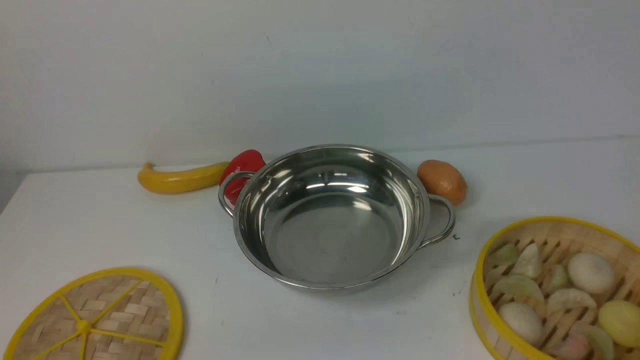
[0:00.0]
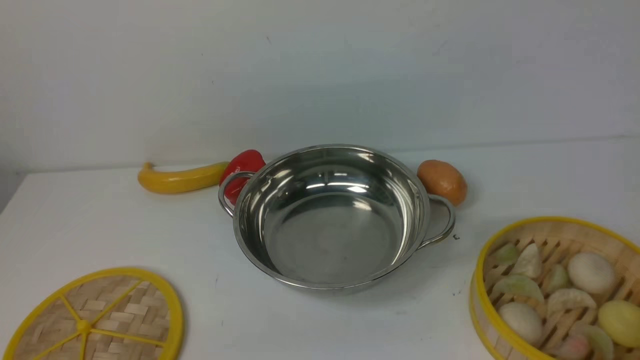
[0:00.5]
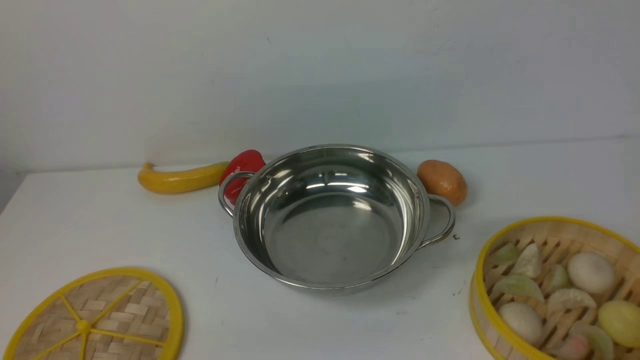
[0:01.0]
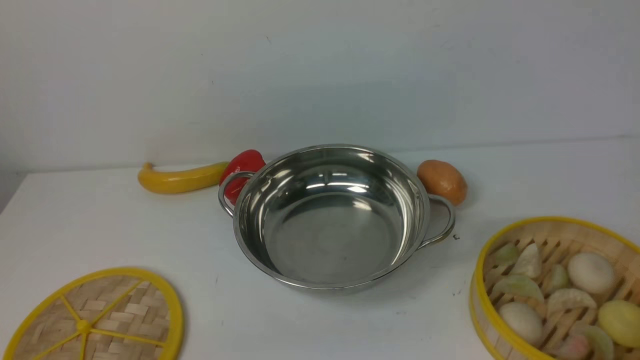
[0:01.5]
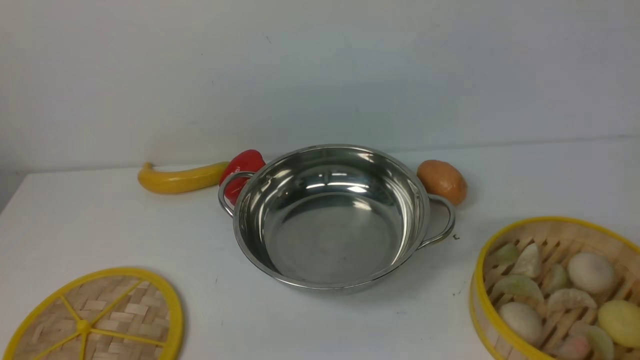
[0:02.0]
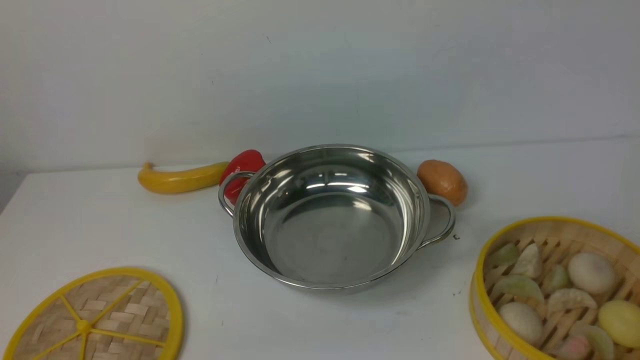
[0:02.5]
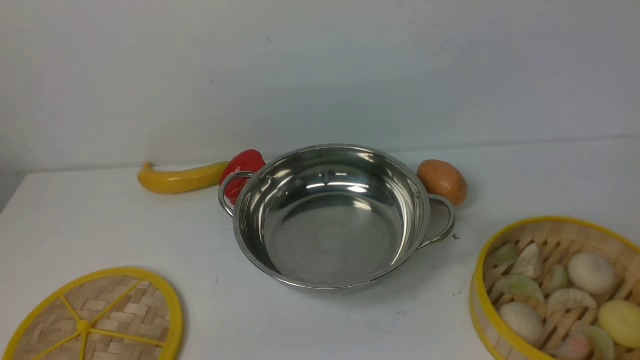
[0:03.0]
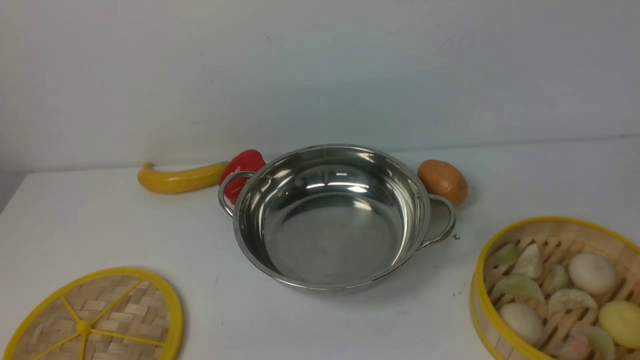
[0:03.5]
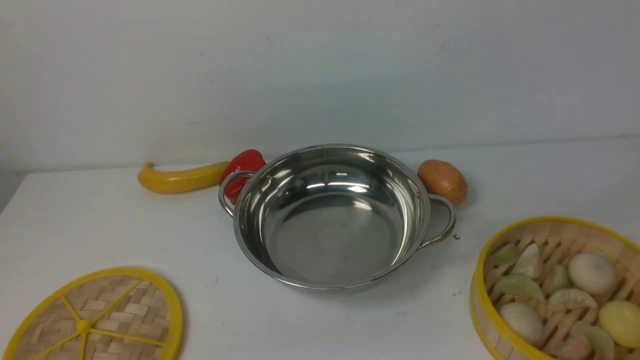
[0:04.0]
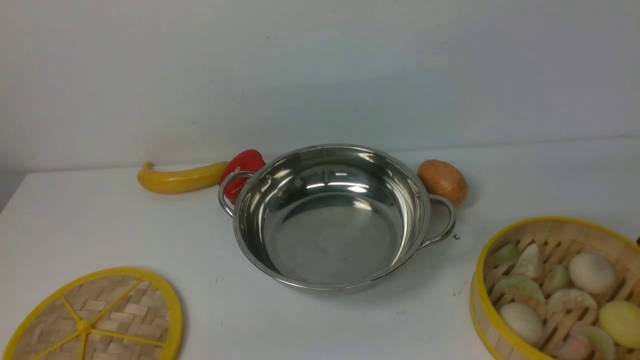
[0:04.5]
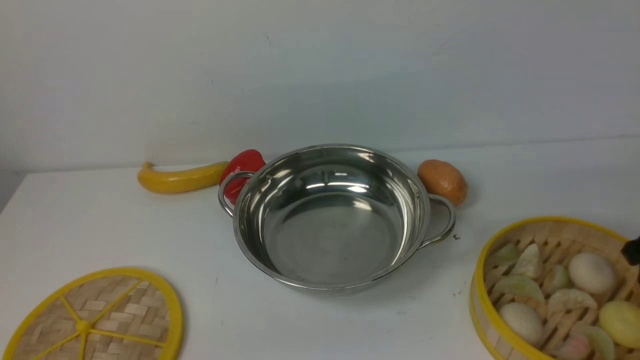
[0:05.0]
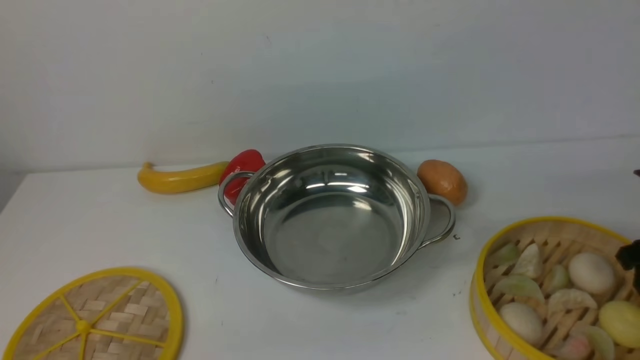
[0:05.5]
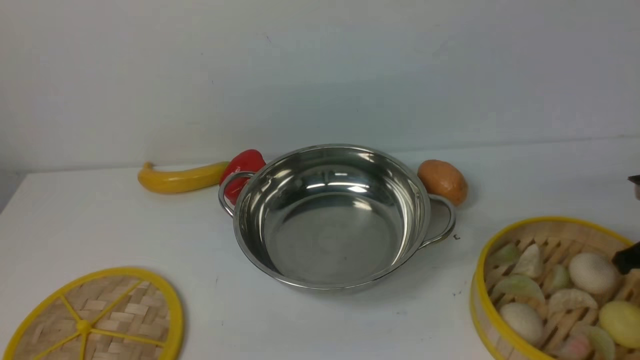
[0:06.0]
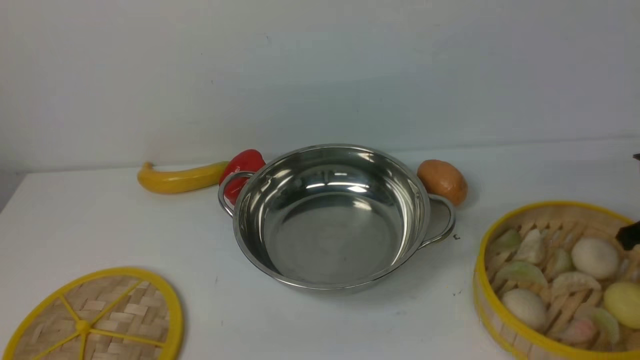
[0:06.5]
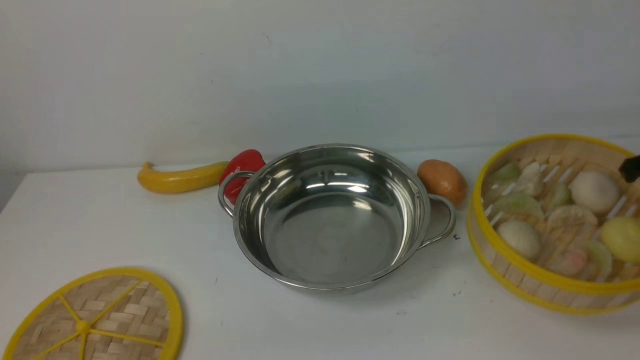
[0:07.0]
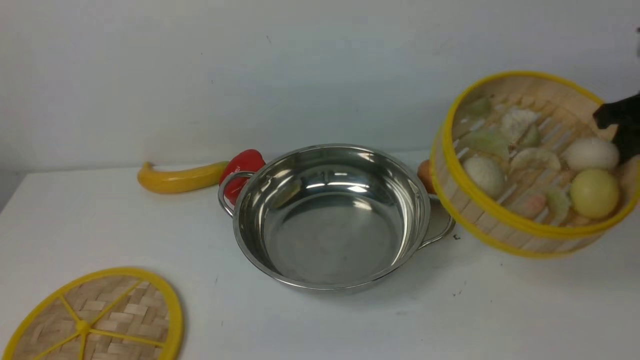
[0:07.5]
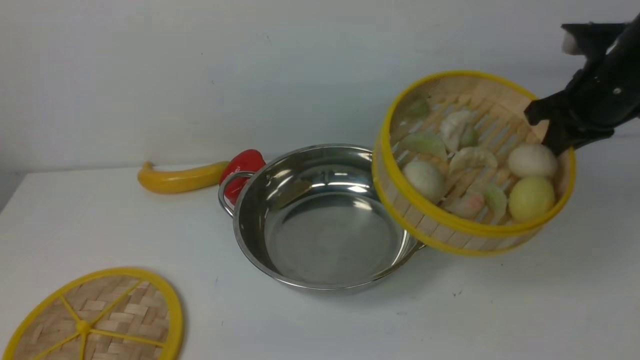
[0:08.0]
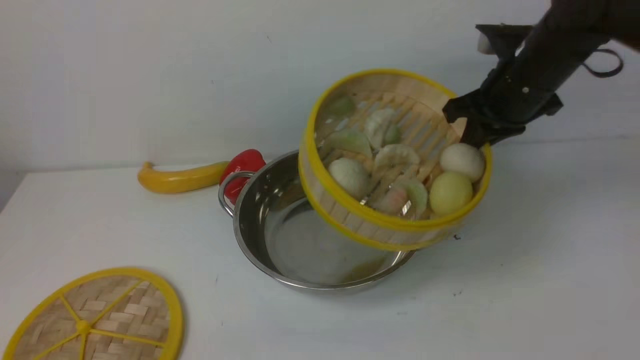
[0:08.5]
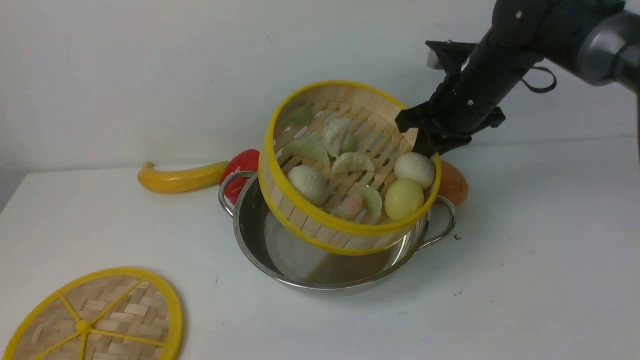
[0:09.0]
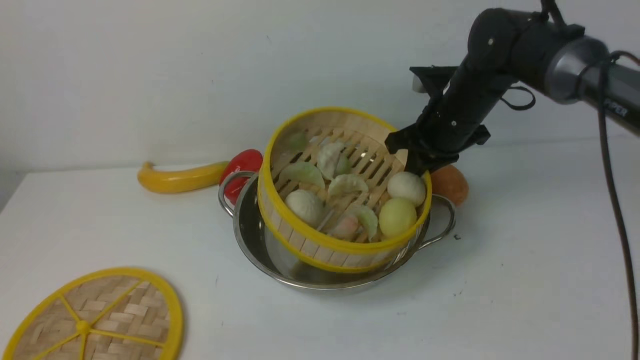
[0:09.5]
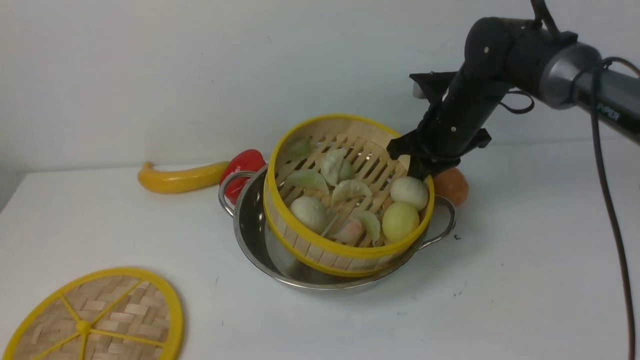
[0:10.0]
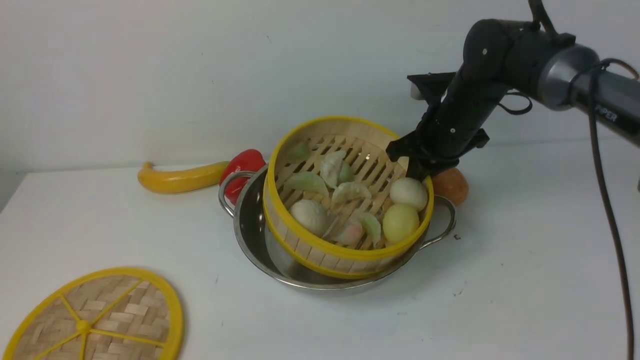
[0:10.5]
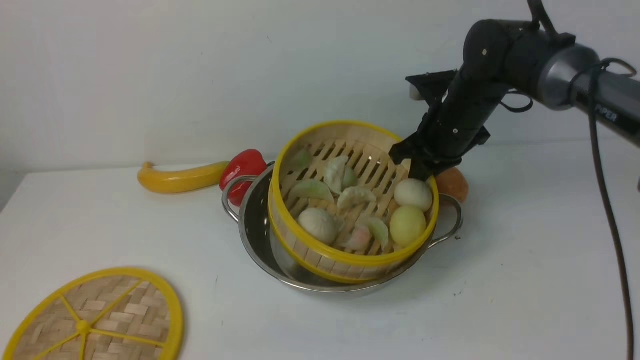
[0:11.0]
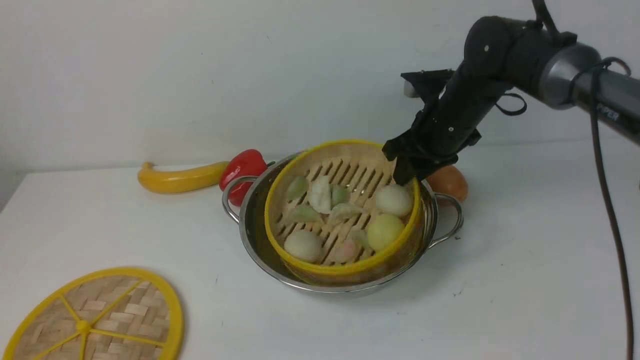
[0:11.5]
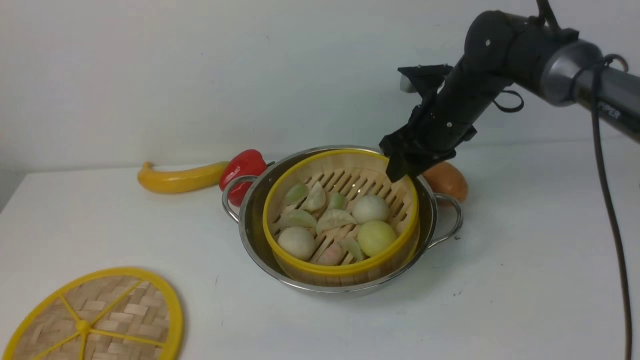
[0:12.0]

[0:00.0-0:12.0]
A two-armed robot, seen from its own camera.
Task of the whole recording: place the steamer in the pot on the white table, and put the lid on the steamer.
Step, 0:00.0 to 0:06.5: use the right arm to lift the steamer closest to it.
0:06.0 to 0:08.0: The right gripper heads upward, to the left and forward, covering approximately 20 cm.
0:08.0 to 0:10.0: The right gripper heads to the left and downward, covering about 15 cm.
0:10.0 to 0:12.0: The right gripper opens up.

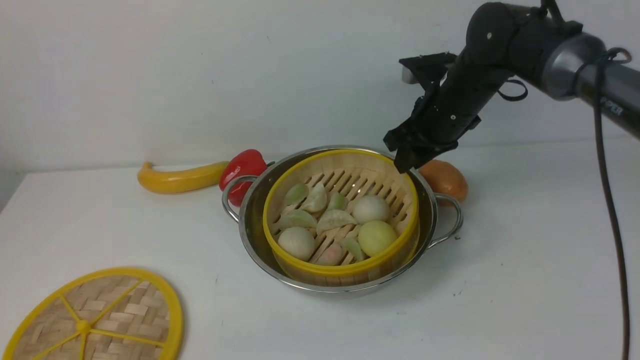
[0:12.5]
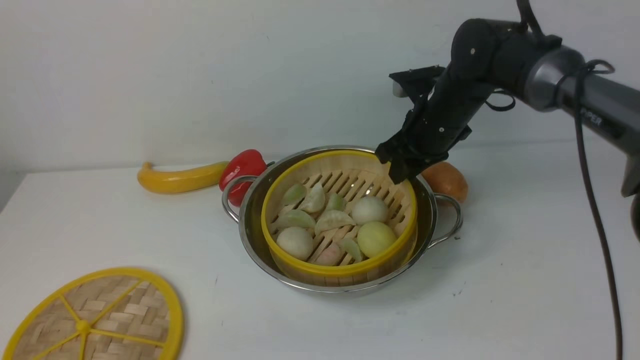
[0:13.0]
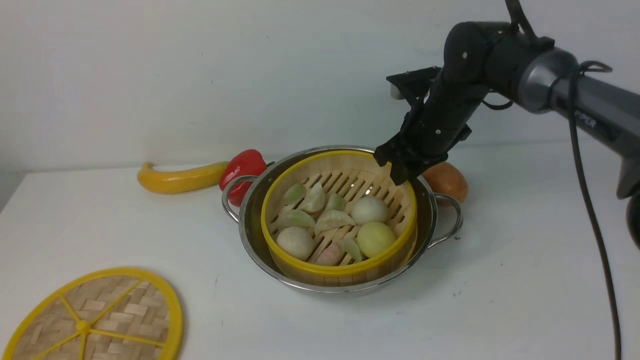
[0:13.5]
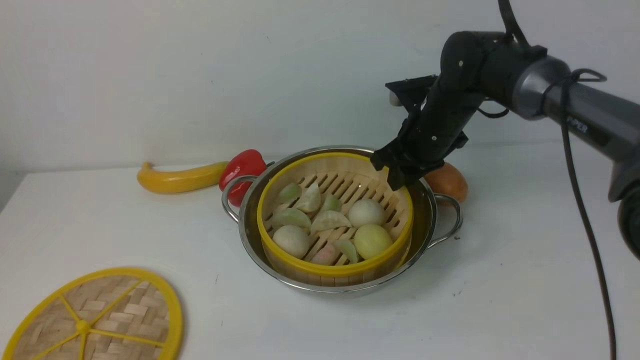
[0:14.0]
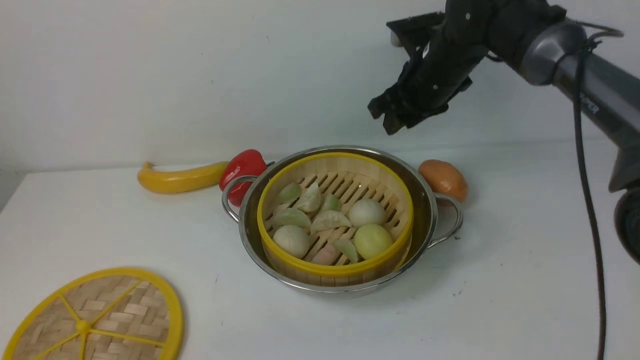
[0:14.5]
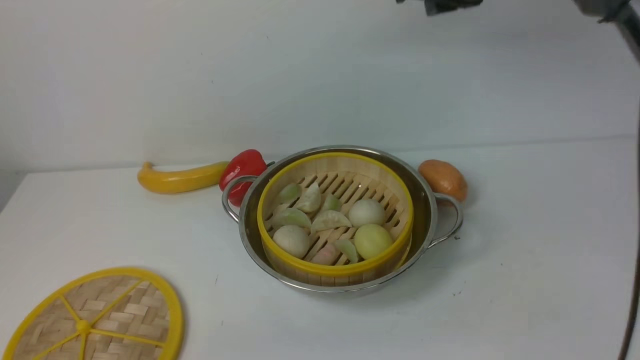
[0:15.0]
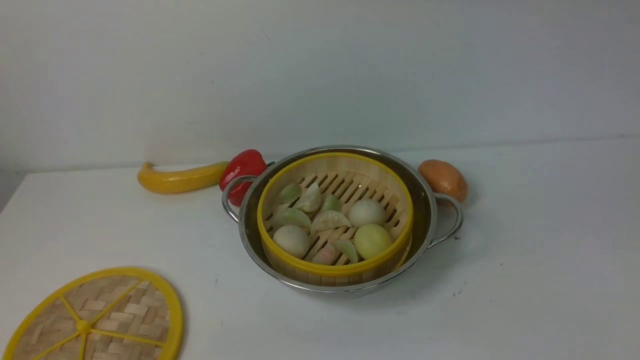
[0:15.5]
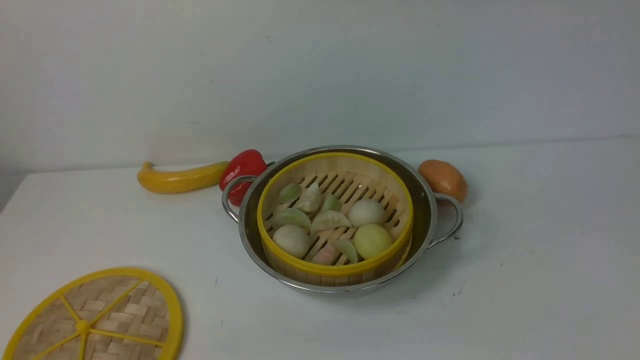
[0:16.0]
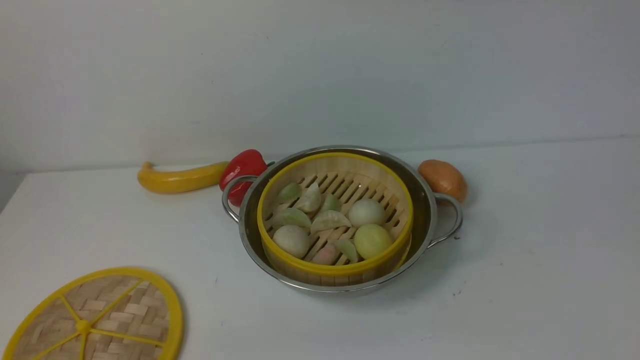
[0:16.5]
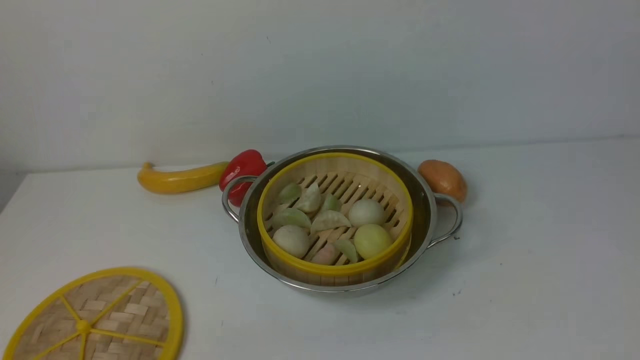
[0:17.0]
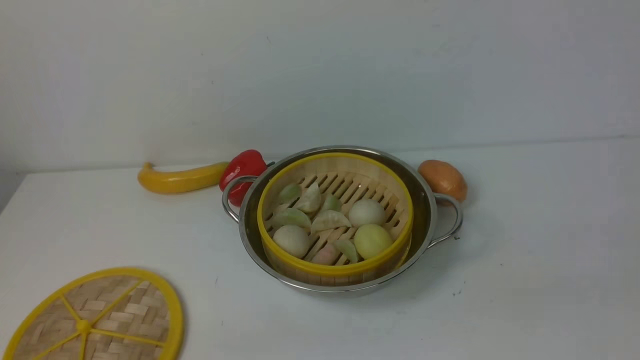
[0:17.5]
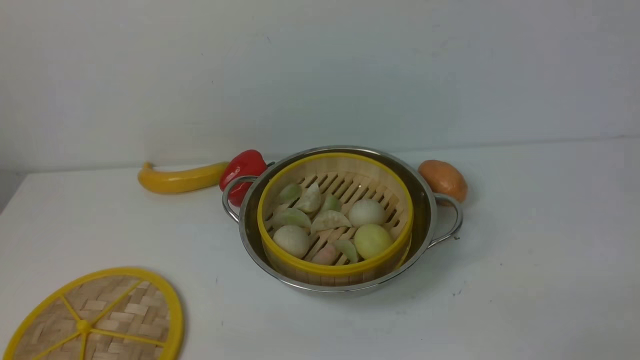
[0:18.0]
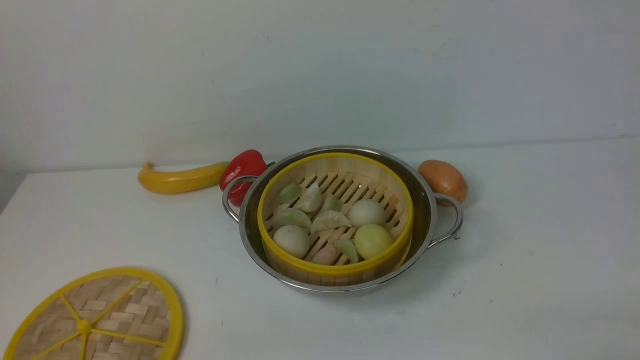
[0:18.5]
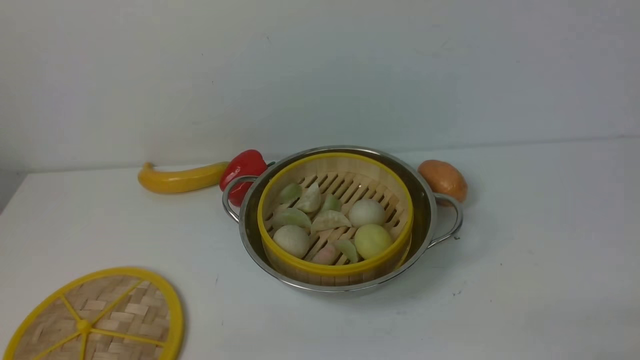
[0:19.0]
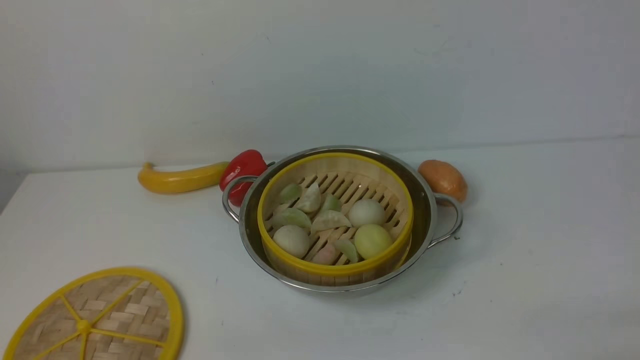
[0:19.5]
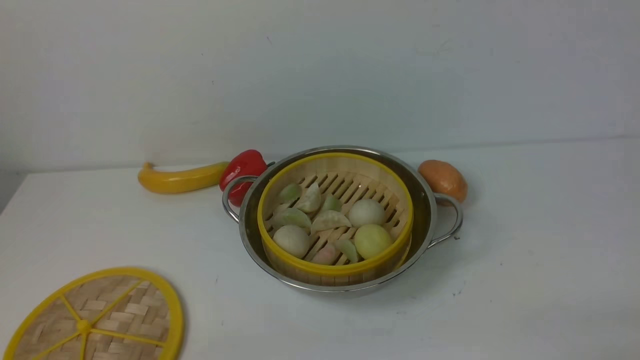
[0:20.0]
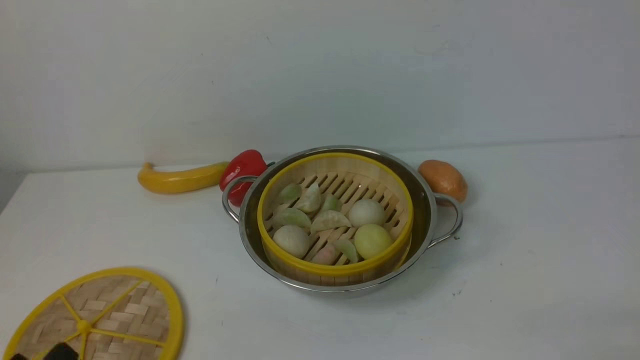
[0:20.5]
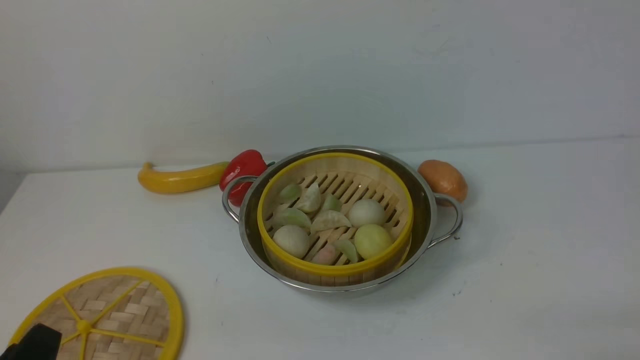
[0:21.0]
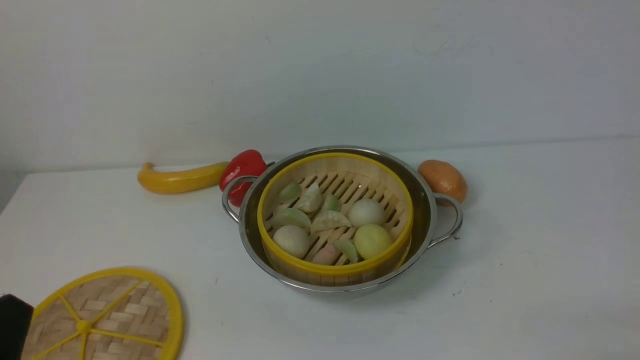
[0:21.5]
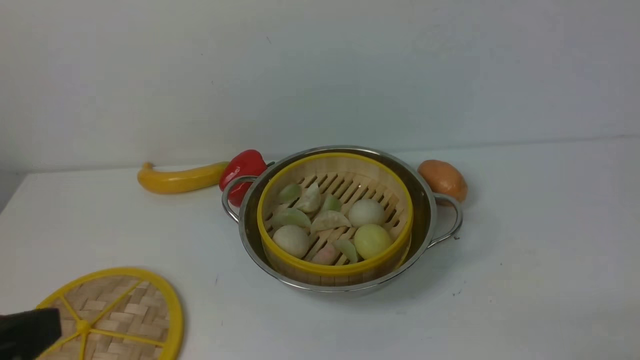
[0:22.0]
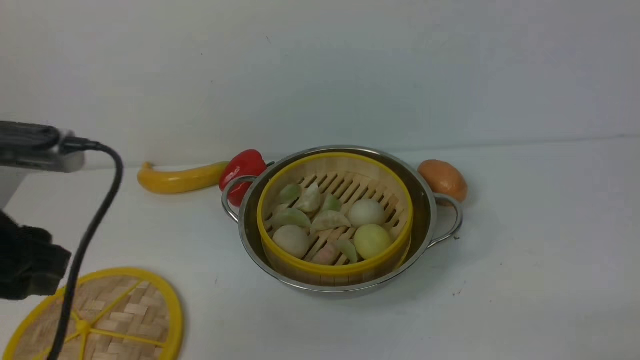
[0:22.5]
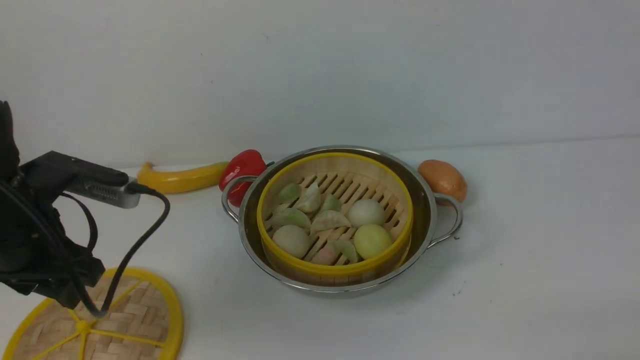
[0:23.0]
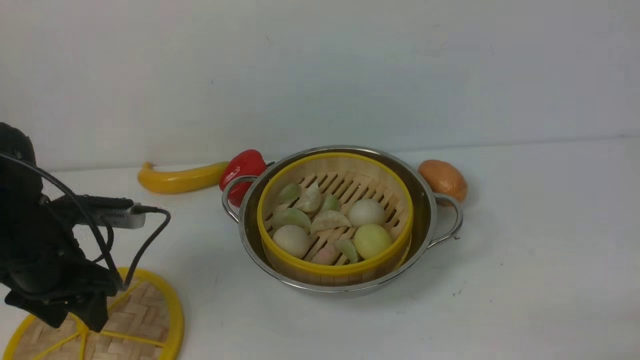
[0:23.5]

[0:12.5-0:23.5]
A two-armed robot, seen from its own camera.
Task of the whole recording: place the steamer in the pot on the white table, and put the lid on the steamer.
0:12.5 to 0:14.5: There are only small adjustments of the grippers.
0:14.5 to 0:16.0: The right gripper moves upward and backward, some 30 cm, and closes up.
0:20.0 to 0:21.5: The left gripper moves upward, approximately 10 cm.
0:21.5 to 0:23.5: The left gripper travels forward by approximately 25 cm.
